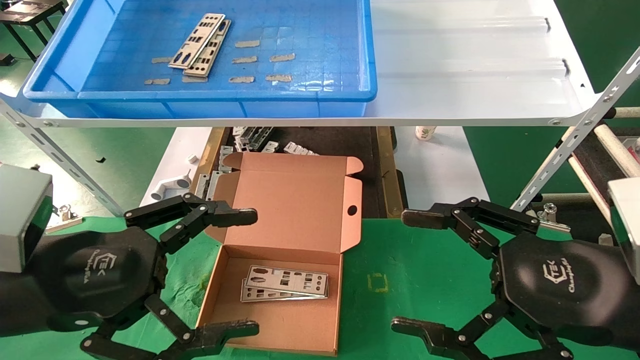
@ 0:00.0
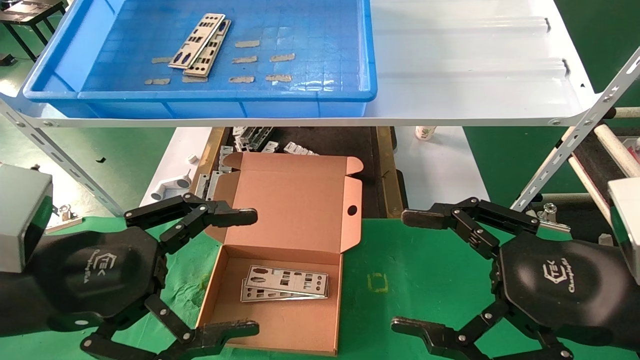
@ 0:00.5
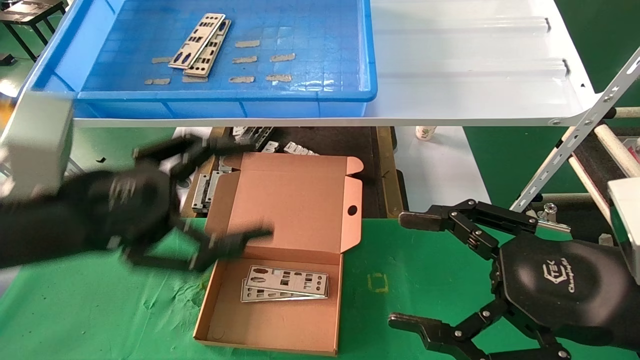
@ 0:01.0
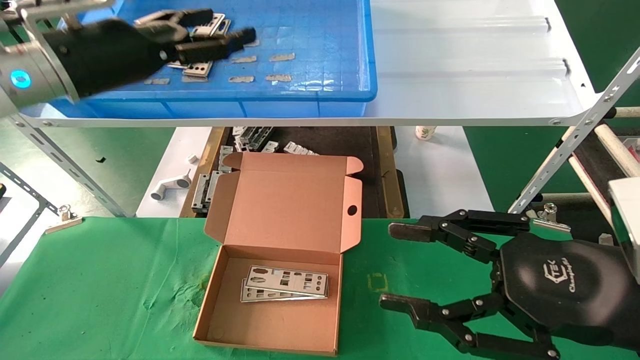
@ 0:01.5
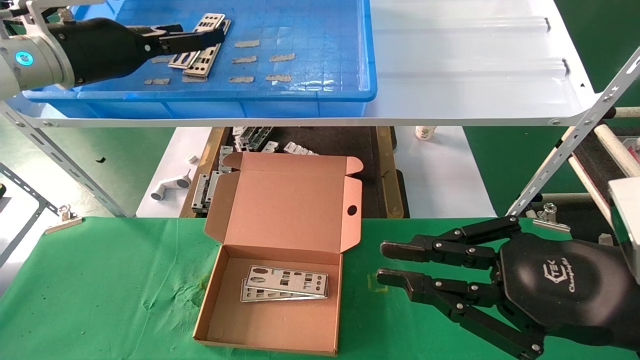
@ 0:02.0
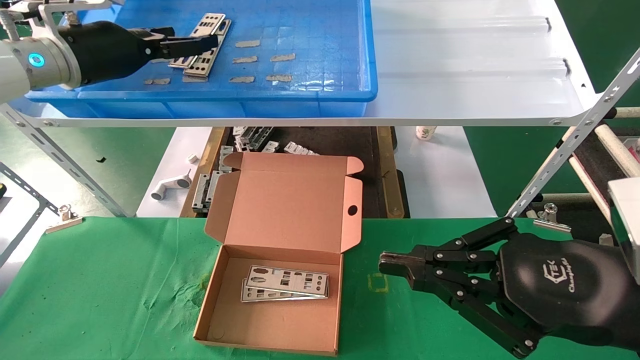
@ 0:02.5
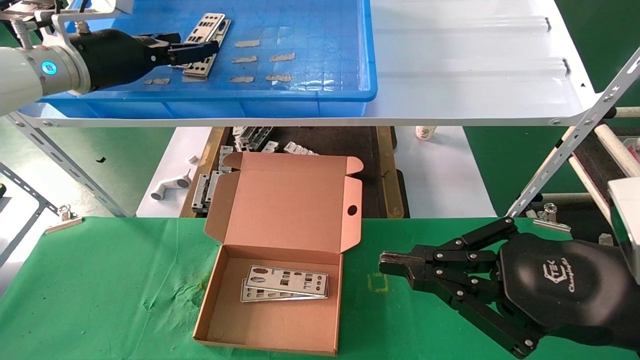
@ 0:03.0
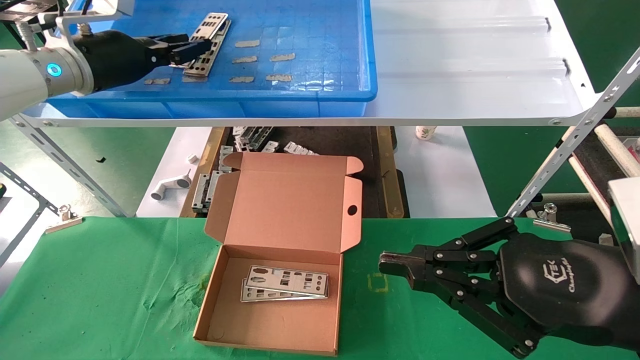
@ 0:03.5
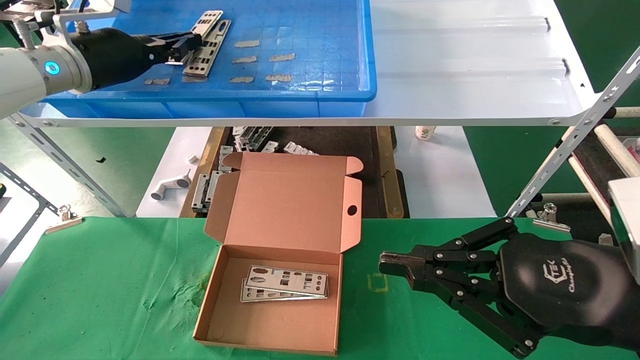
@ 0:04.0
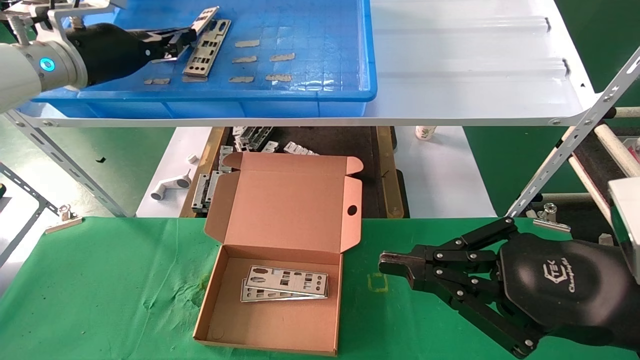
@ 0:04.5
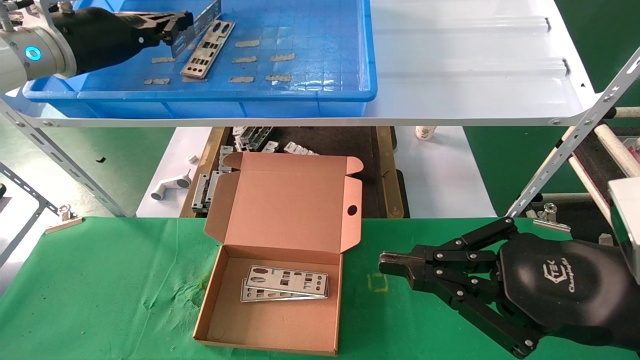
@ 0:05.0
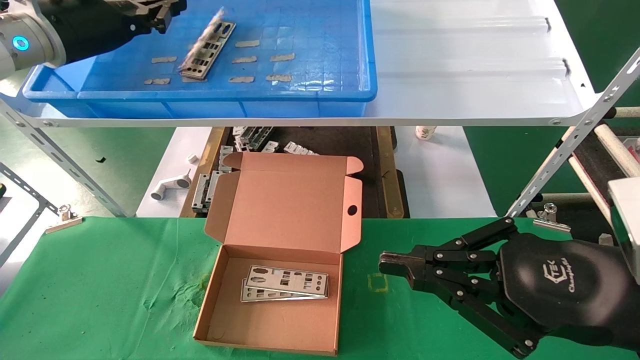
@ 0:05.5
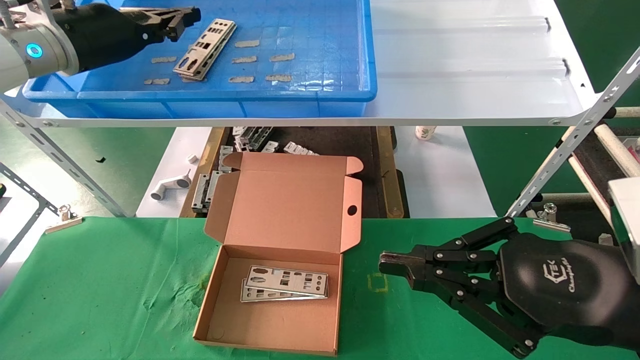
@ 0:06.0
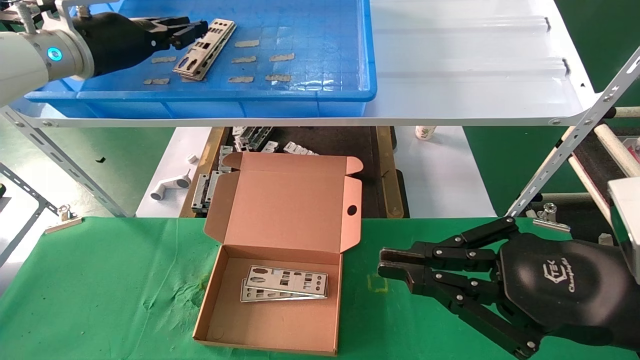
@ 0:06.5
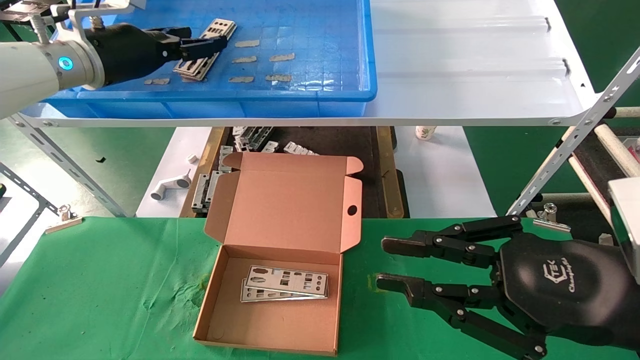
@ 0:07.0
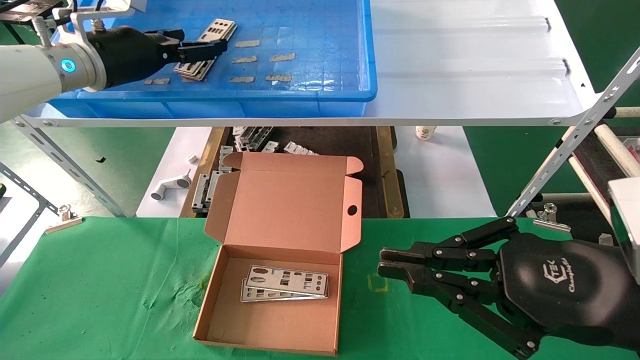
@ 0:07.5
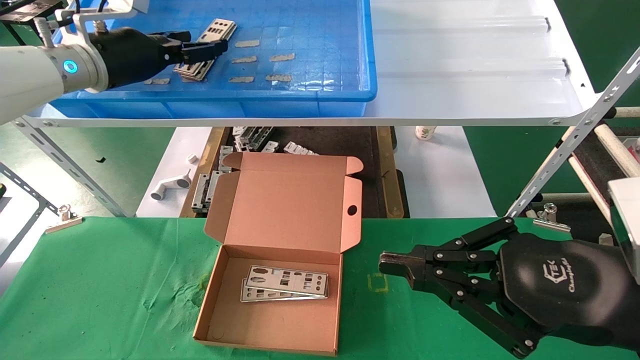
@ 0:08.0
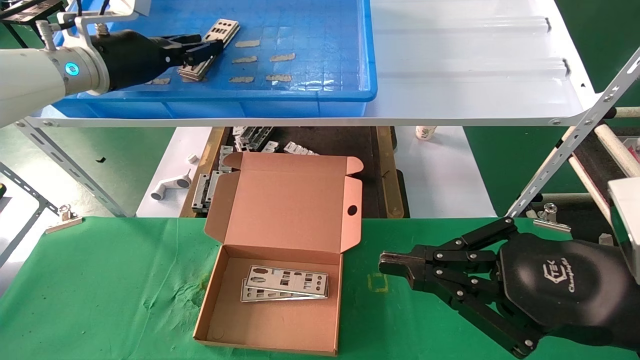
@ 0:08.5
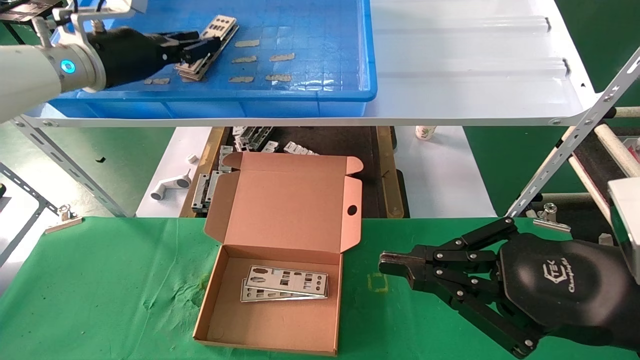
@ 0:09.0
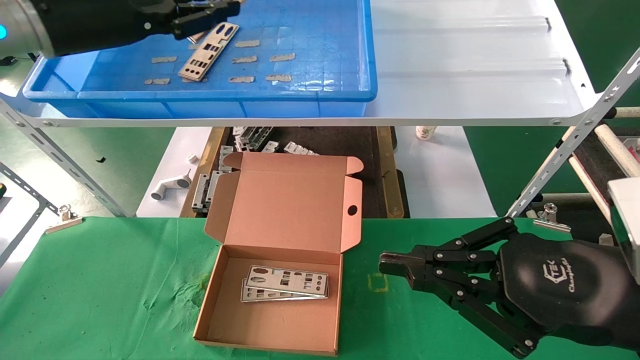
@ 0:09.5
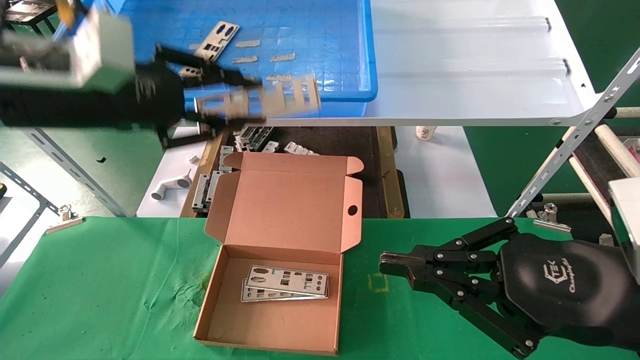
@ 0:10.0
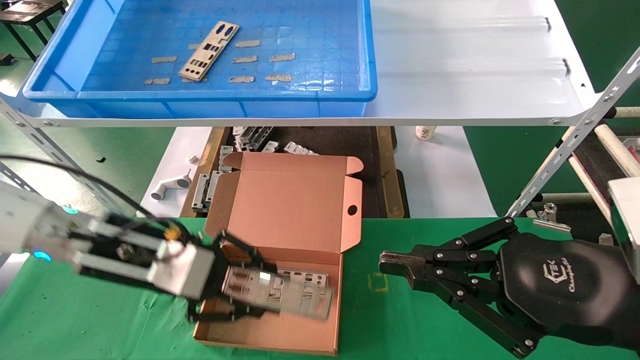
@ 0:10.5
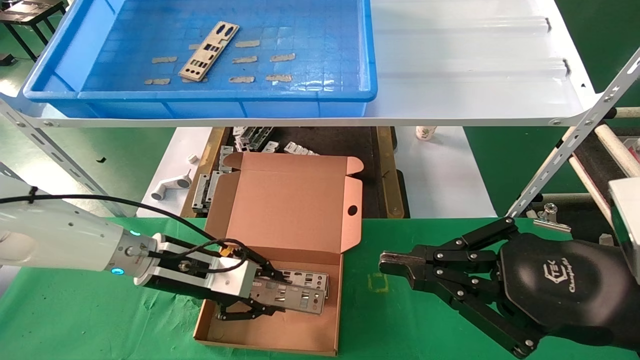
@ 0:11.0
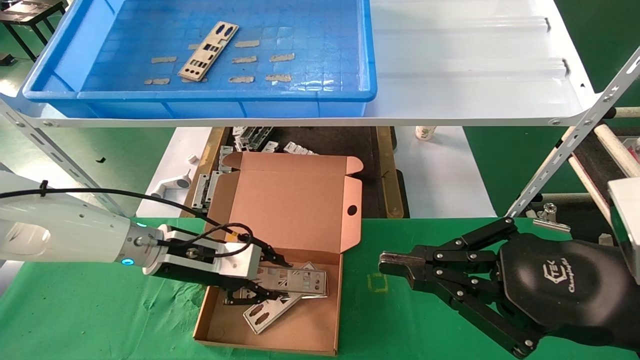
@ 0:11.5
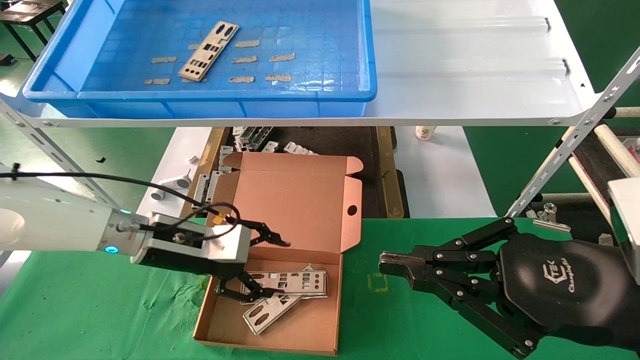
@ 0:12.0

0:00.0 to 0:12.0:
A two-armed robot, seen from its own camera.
Task of the whole recording: pick up the parts on the tray and put them in the cardboard box.
Step, 0:01.5 to 0:08.5: Pick up the IO bracket from the container box.
Step, 0:09.0 to 0:11.5: Place the IO bracket into the ingredient slot.
0:00.0 to 0:02.0: The left gripper travels forward and upward by roughly 25 cm. Meanwhile the right gripper closes.
0:02.0 to 0:04.0: The left gripper closes.
0:04.0 to 0:06.0: The grippers make only small movements.
0:06.0 to 0:08.0: The left gripper opens its fingers.
0:08.0 to 0:10.0: The left gripper shifts about 15 cm backward, and closes its fingers.
0:10.0 to 0:12.0: The left gripper moves downward, approximately 20 cm.

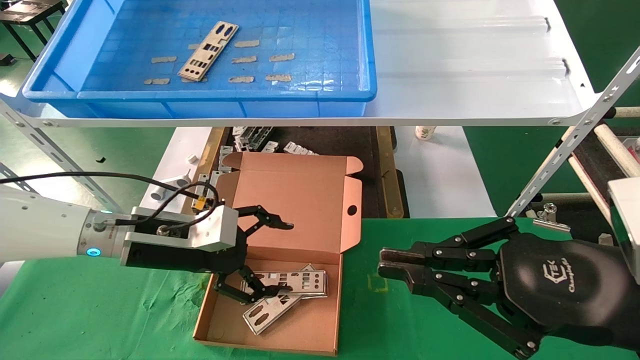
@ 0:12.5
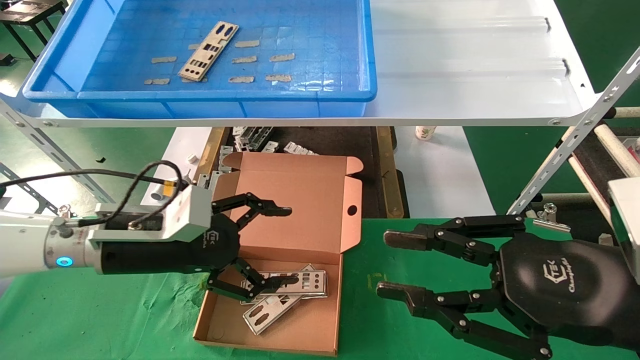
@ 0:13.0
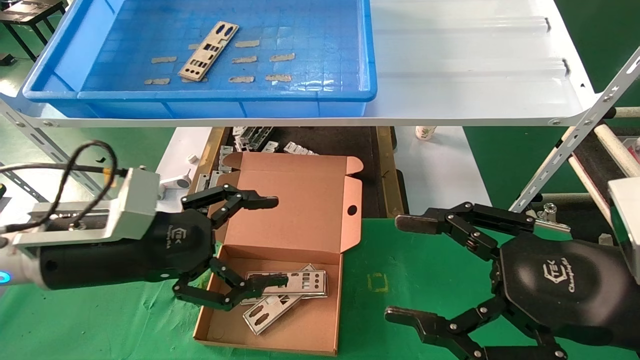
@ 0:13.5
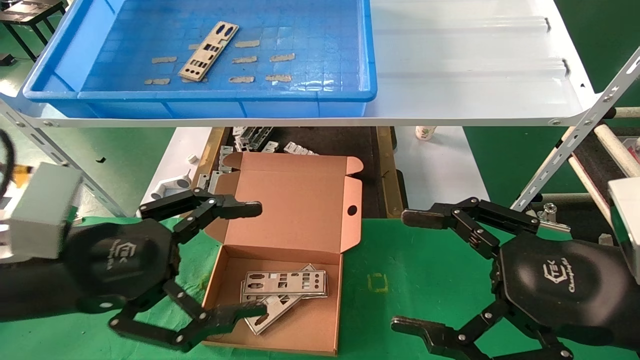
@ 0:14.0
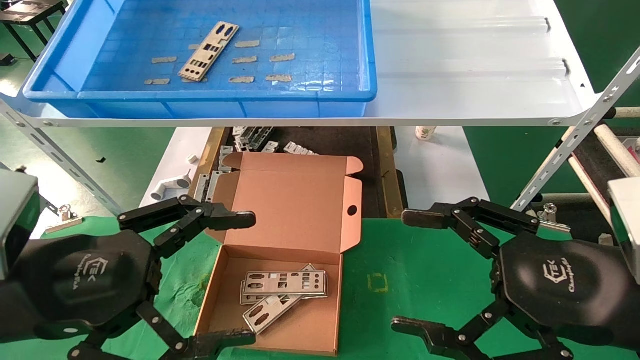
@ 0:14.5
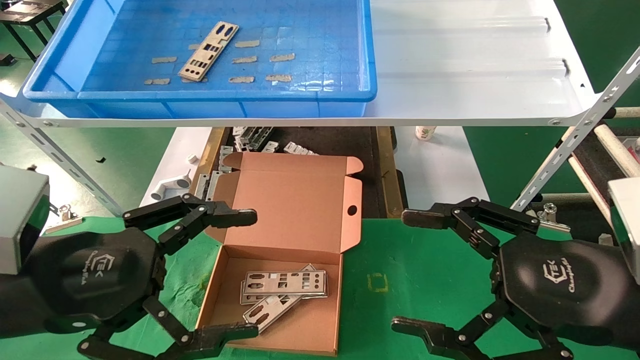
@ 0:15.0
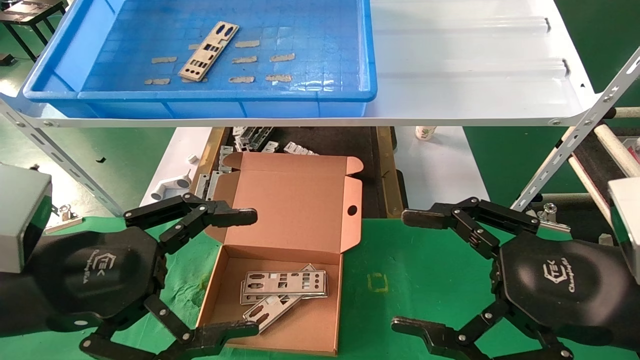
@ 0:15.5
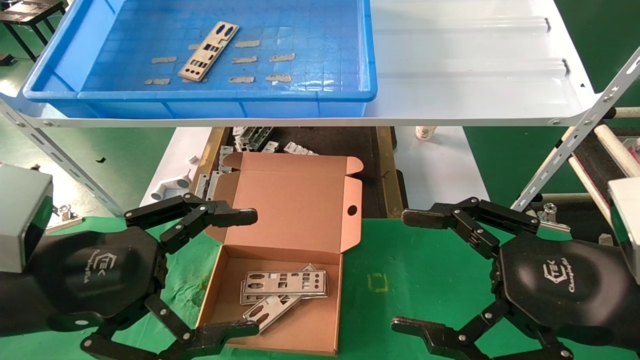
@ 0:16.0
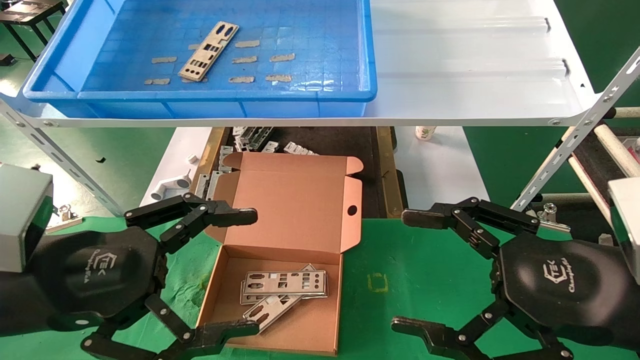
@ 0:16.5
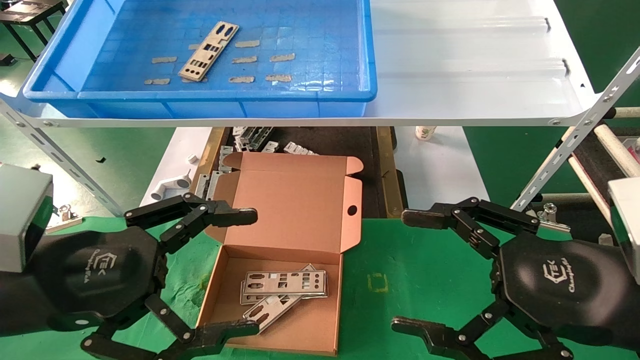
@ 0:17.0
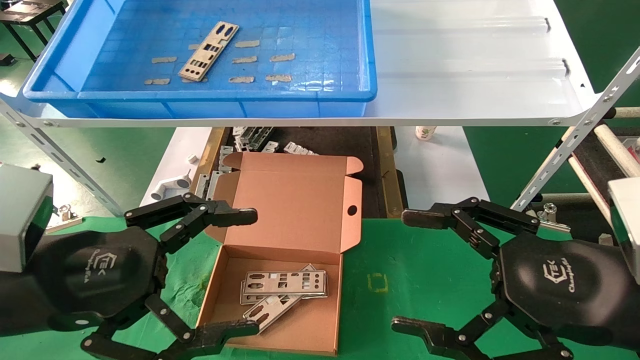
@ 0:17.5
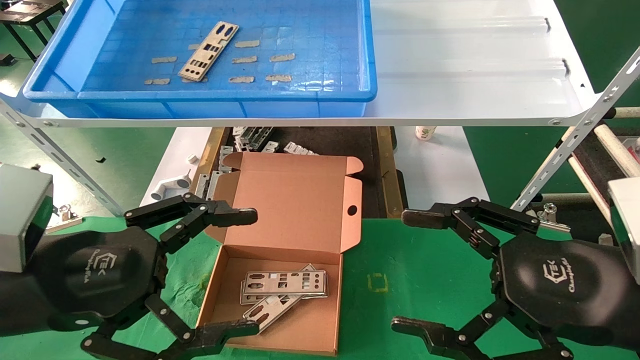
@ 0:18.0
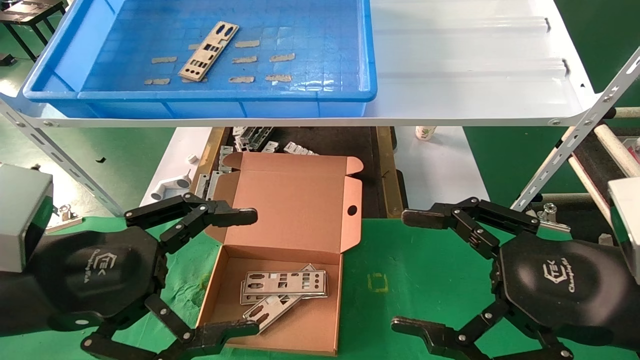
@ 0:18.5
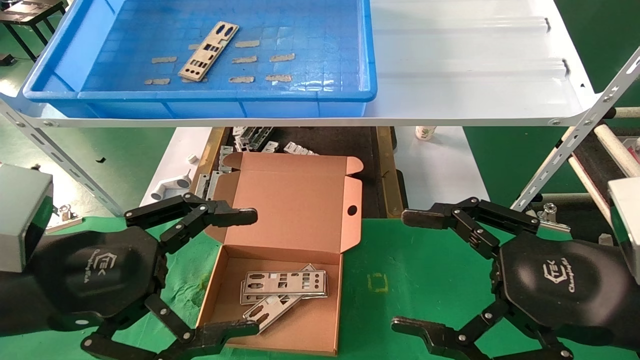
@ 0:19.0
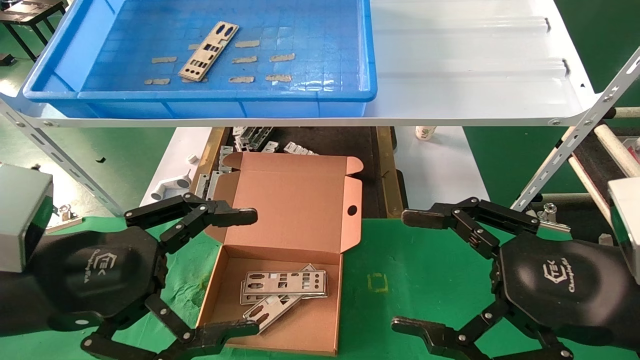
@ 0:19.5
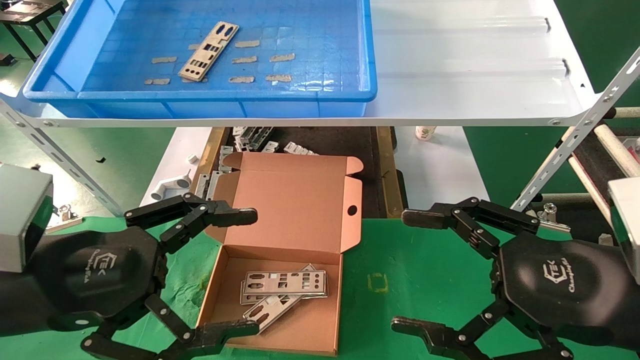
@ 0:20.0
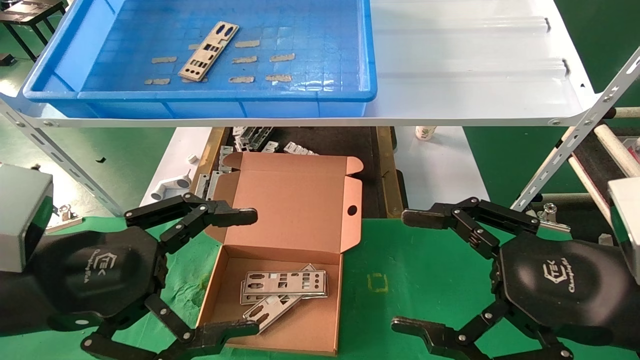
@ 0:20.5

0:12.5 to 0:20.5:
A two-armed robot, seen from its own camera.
Task of the whole recording: pick up the parts on the tray and put them in the cardboard box.
0:12.5 to 0:14.5: The right gripper opens; the left gripper travels backward by some 20 cm.
0:14.5 to 0:20.5: Both grippers stay put.
